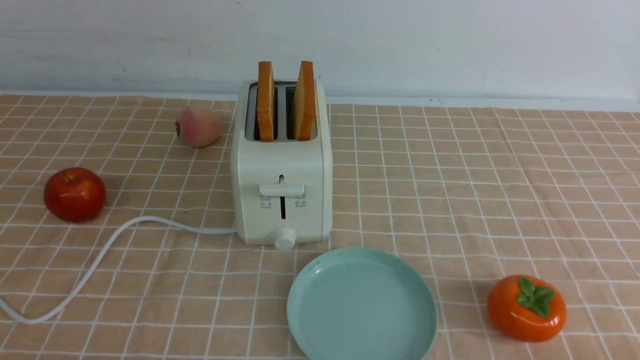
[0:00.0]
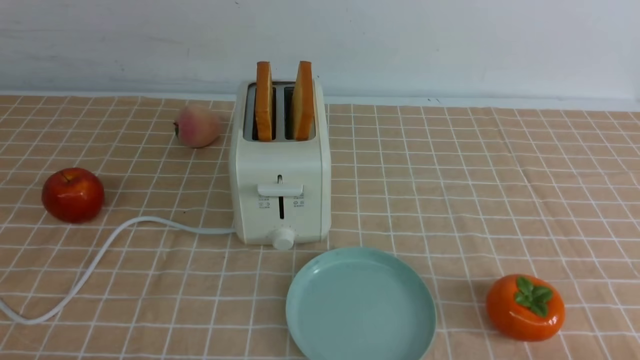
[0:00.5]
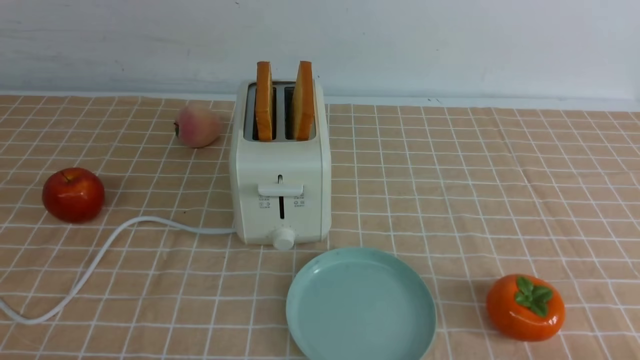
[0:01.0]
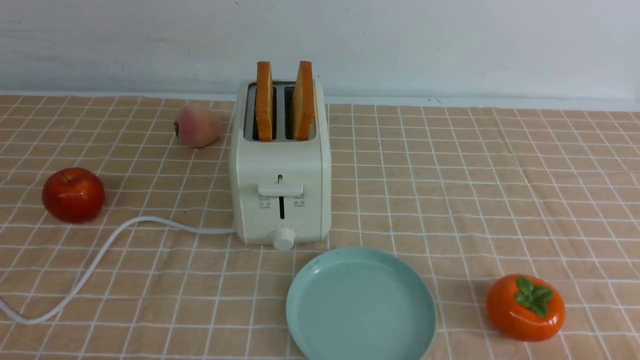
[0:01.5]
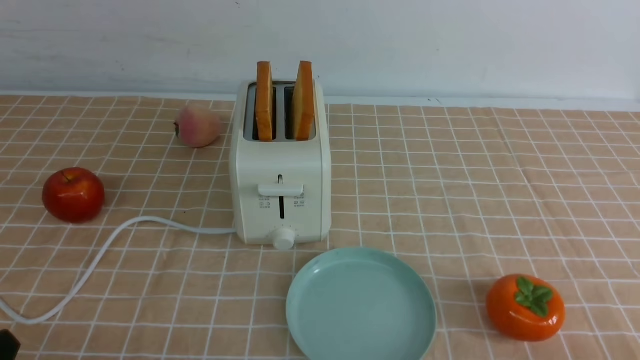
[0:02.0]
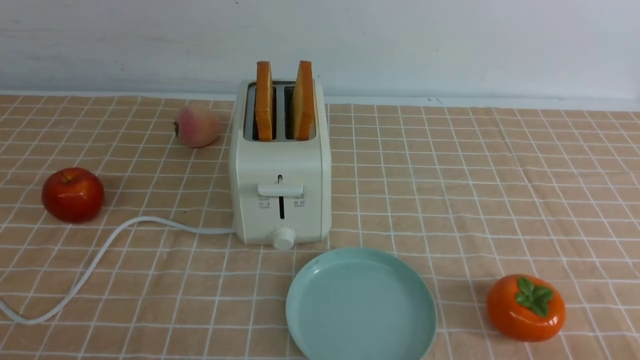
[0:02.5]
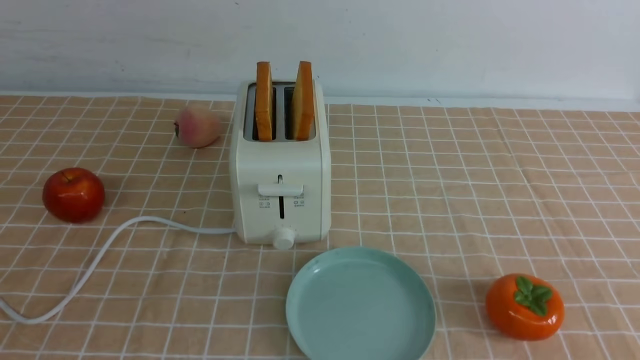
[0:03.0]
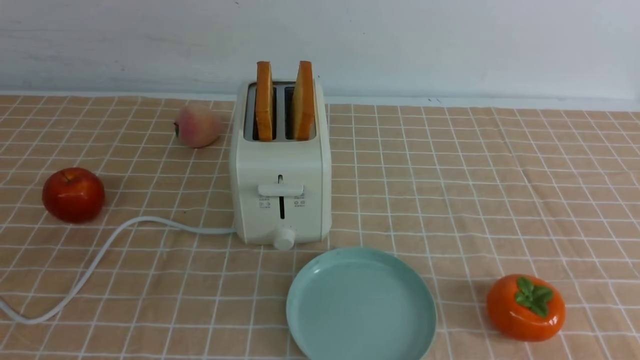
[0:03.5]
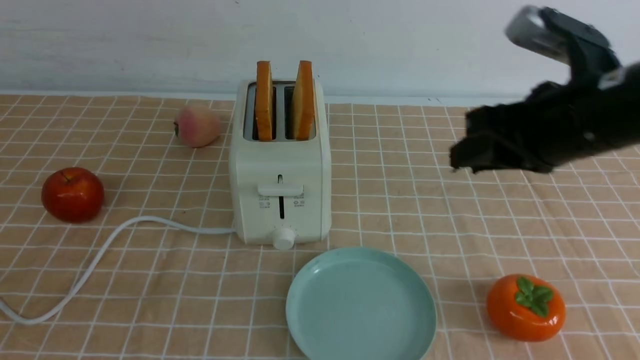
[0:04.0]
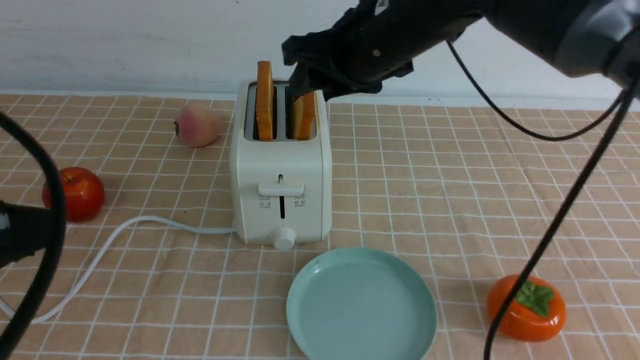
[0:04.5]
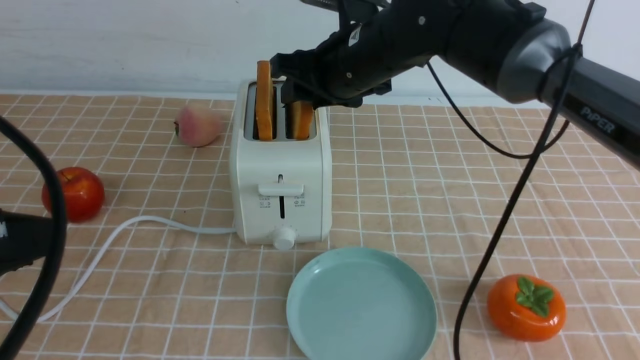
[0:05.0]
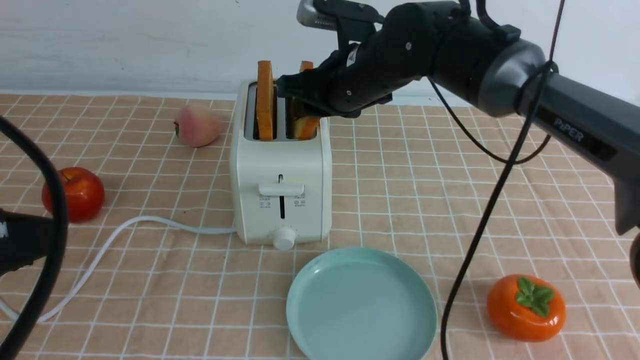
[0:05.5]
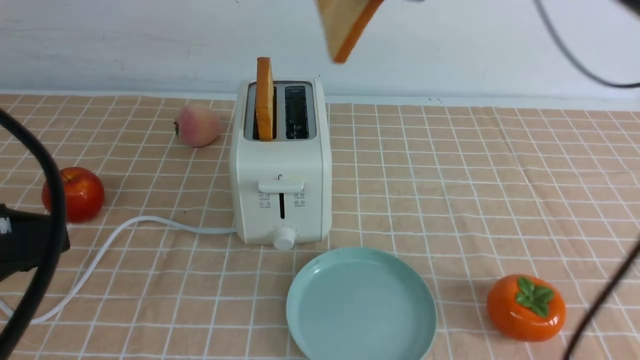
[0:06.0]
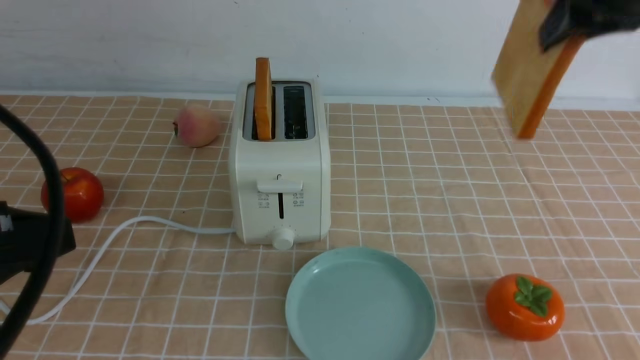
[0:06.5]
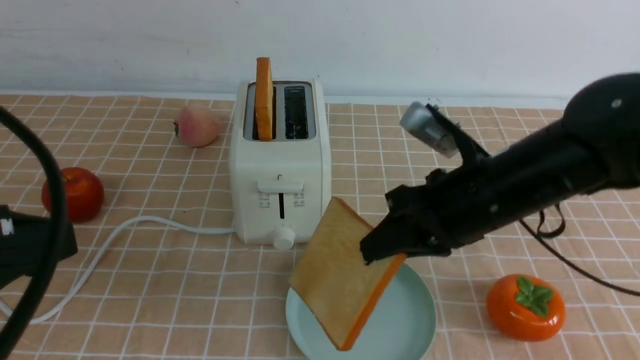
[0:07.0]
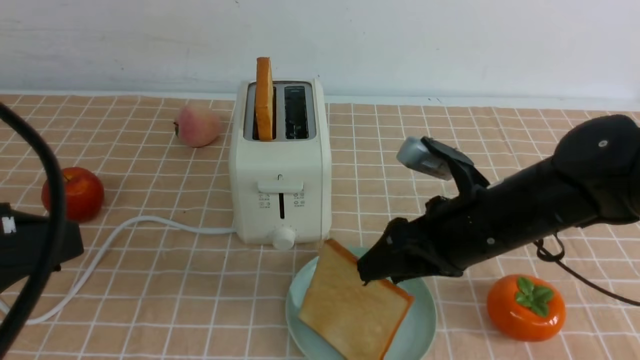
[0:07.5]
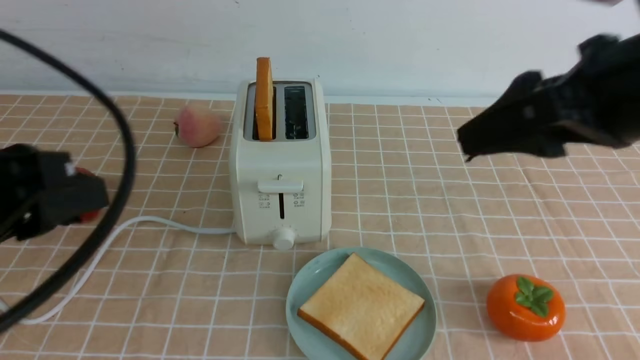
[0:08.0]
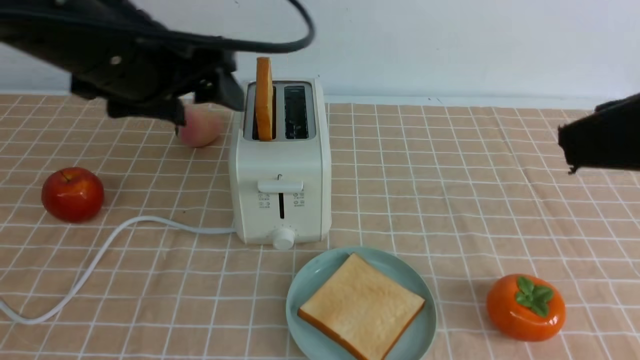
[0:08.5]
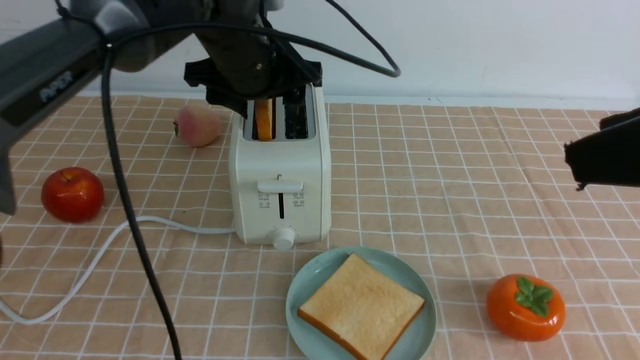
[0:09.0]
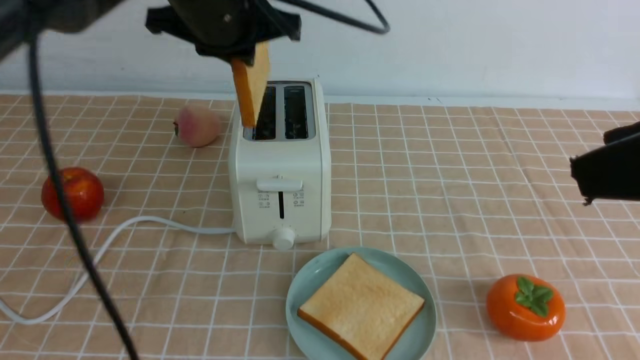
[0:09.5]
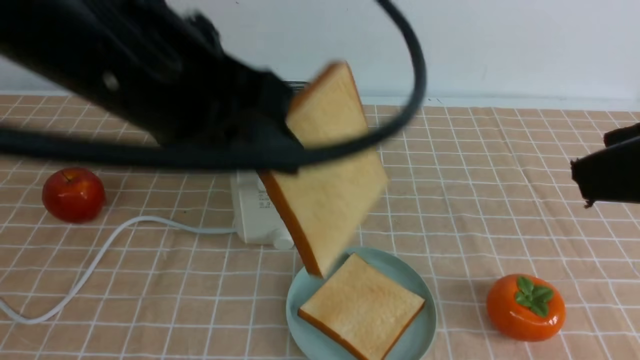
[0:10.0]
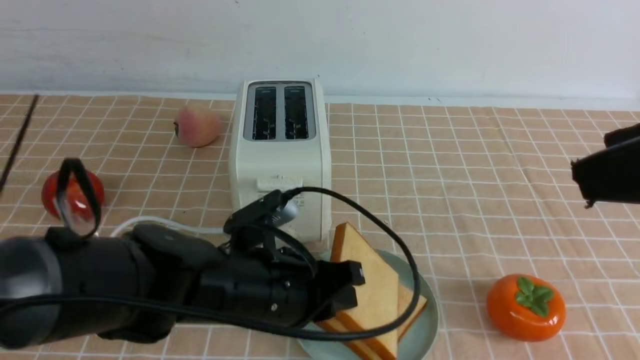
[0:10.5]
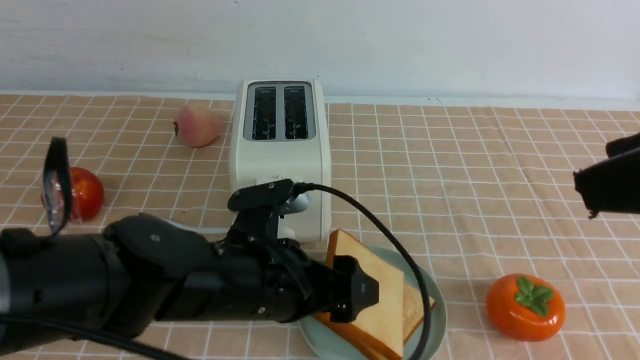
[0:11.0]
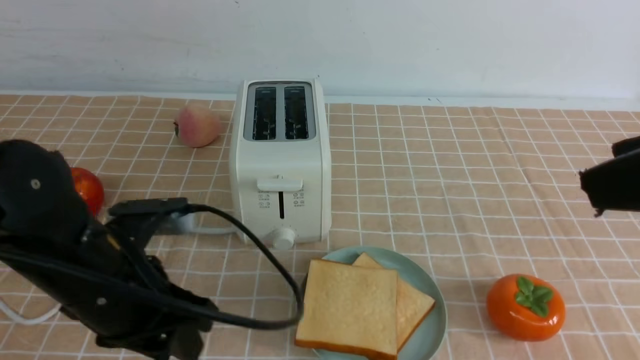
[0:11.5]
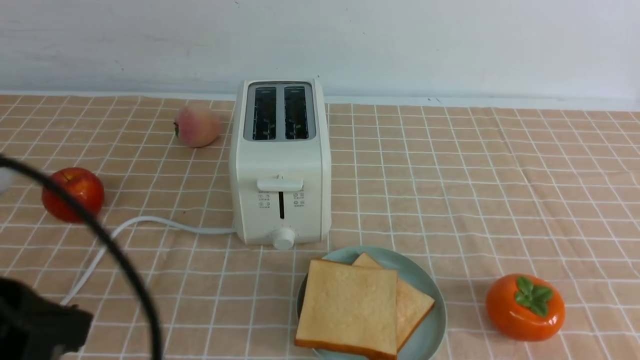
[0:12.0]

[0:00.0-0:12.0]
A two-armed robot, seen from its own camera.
Task of the whole recording: take toasted bread from bread machine on light coffee tablecloth place on plate.
Step, 0:00.0 to 0:05.5: use the right arm to take out a slice of bread.
Step, 0:06.0 to 0:07.5: use the right arm to put a slice of bread into the plate.
Step, 0:08.0 to 0:09.0: use the left arm to take out a slice of bread.
Step, 0:10.0 to 0:11.0: use the left arm to put a slice of bread into the empty plate.
0:02.0 to 0:04.0: The right gripper shifts some 30 cm forward, upward and to the left.
0:04.0 to 0:06.0: The left gripper moves upward, roughly 5 cm. Meanwhile the right gripper heads forward, upward and to the left, covering some 15 cm.
0:06.0 to 0:08.0: The right gripper goes roughly 15 cm backward, reaches about 20 cm downward, then returns, and opens its fingers, while the left gripper is displaced forward by about 5 cm.
0:08.0 to 0:10.0: The left gripper moves to the right, about 10 cm, travels forward and back again, about 25 cm each way, and closes up; the right gripper moves backward, roughly 10 cm.
0:10.0 to 0:12.0: The left gripper goes roughly 20 cm backward and to the left, moves some 20 cm downward and comes back, and opens, then closes again. The right gripper shifts about 10 cm downward and to the right, and closes up.
